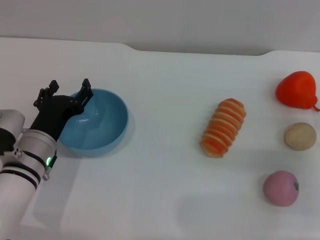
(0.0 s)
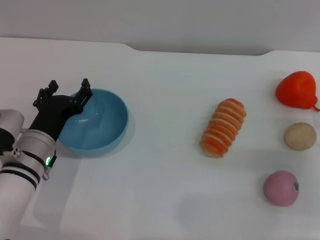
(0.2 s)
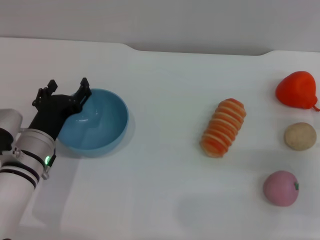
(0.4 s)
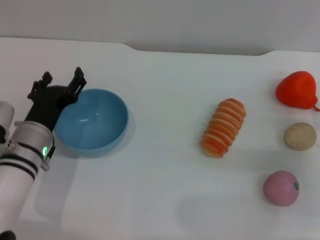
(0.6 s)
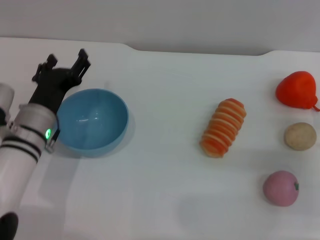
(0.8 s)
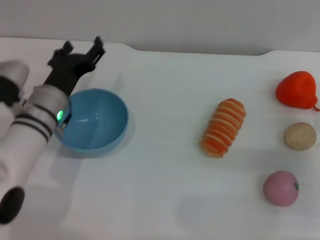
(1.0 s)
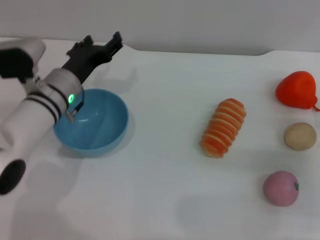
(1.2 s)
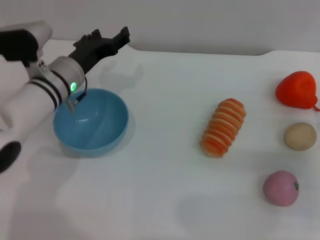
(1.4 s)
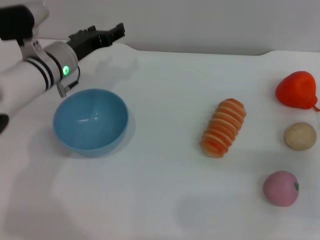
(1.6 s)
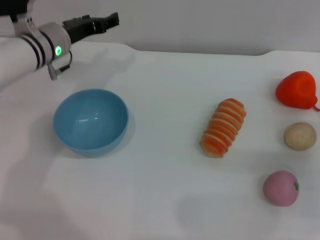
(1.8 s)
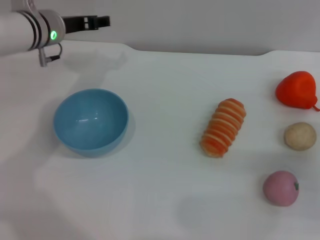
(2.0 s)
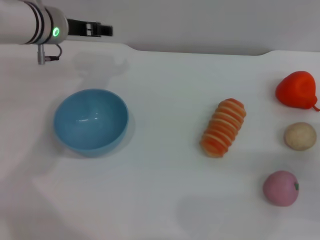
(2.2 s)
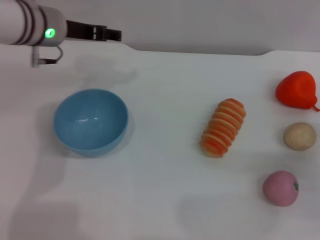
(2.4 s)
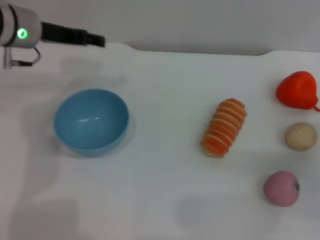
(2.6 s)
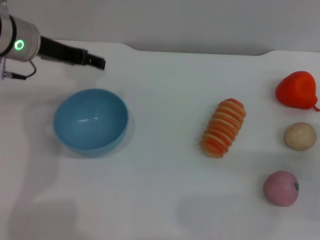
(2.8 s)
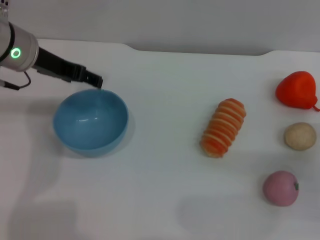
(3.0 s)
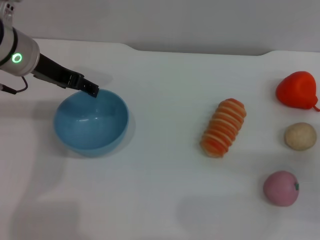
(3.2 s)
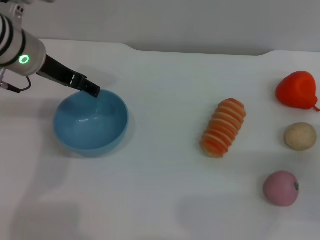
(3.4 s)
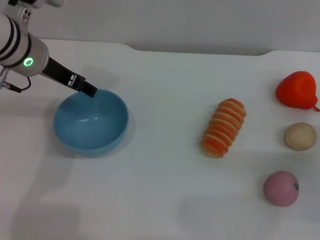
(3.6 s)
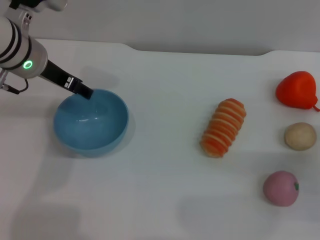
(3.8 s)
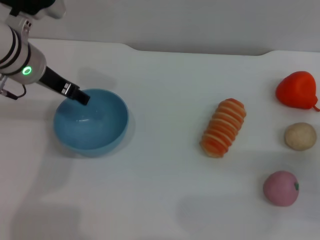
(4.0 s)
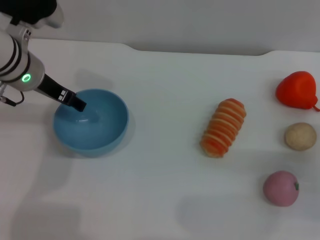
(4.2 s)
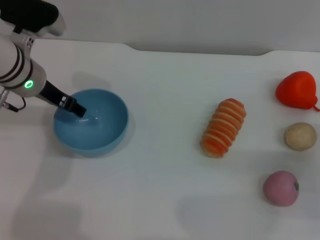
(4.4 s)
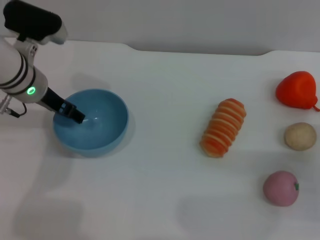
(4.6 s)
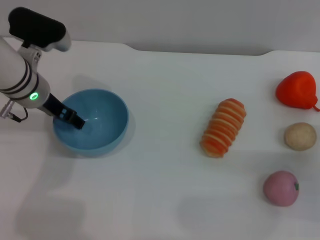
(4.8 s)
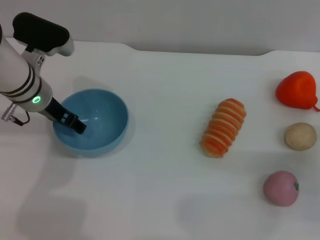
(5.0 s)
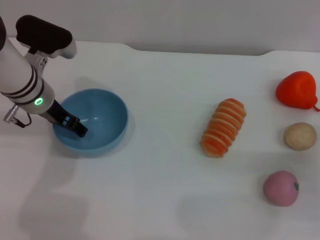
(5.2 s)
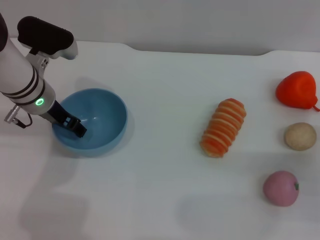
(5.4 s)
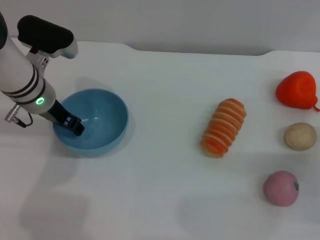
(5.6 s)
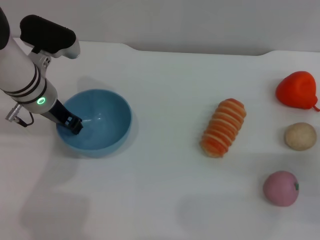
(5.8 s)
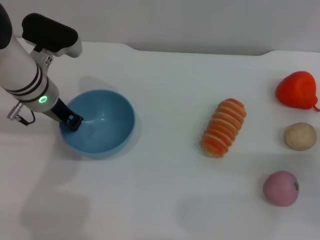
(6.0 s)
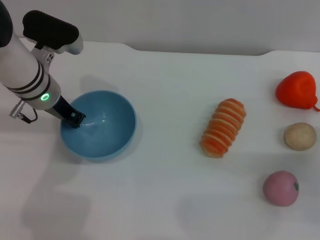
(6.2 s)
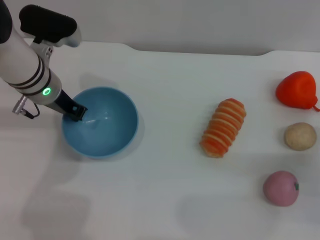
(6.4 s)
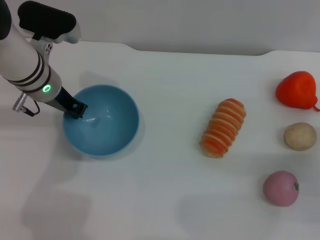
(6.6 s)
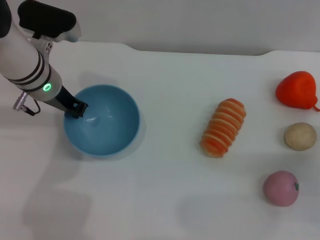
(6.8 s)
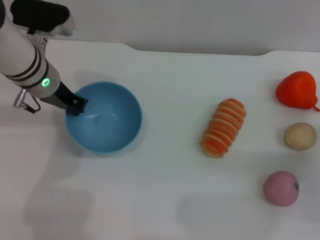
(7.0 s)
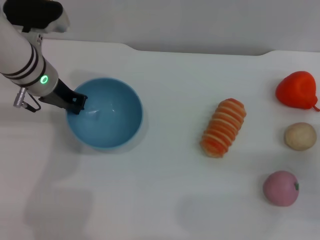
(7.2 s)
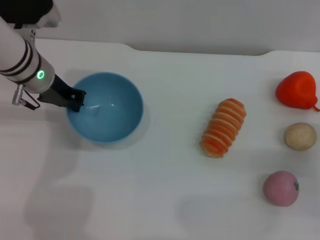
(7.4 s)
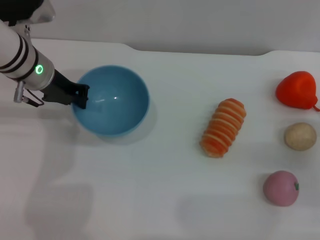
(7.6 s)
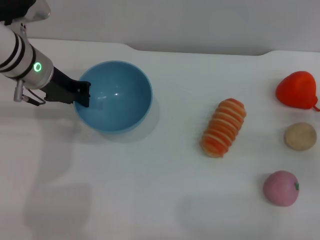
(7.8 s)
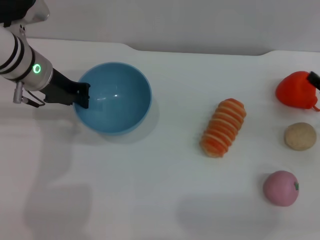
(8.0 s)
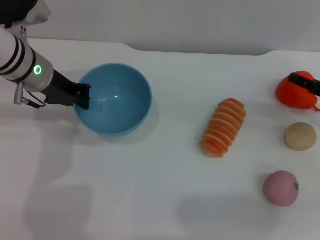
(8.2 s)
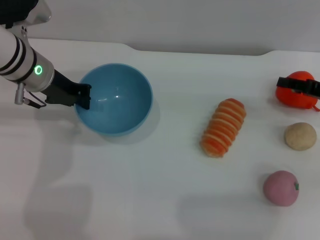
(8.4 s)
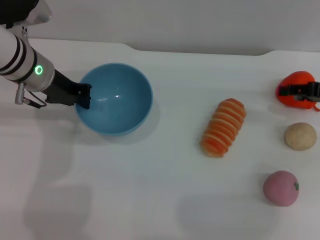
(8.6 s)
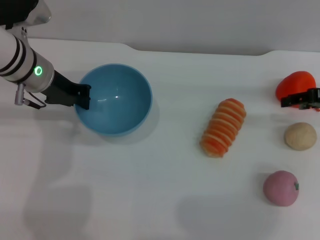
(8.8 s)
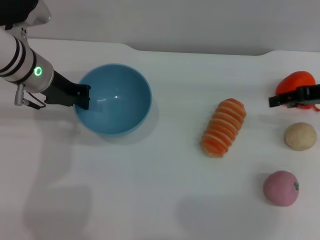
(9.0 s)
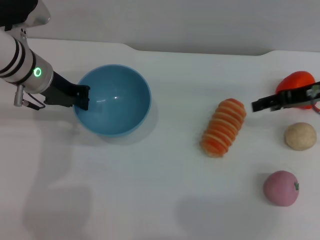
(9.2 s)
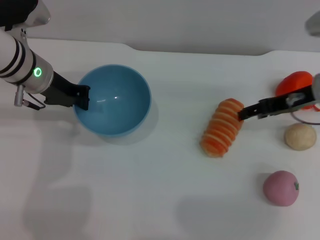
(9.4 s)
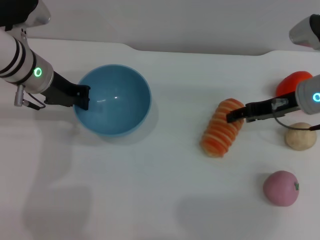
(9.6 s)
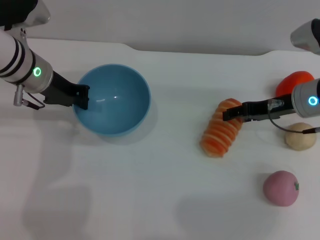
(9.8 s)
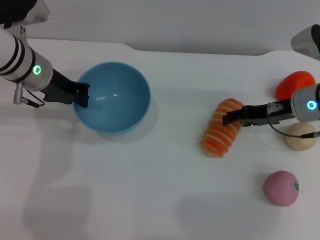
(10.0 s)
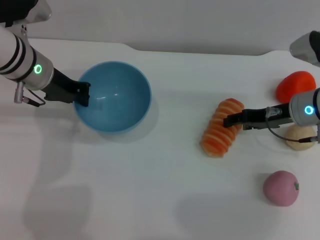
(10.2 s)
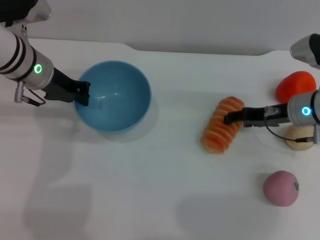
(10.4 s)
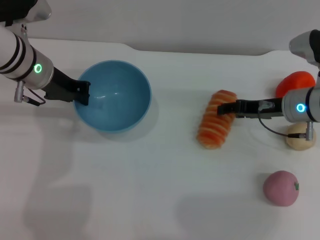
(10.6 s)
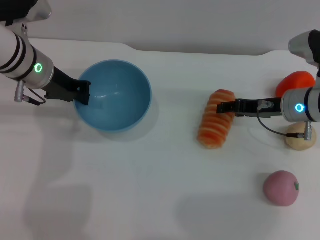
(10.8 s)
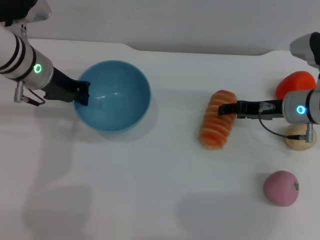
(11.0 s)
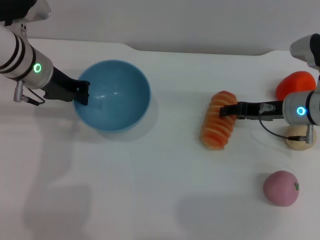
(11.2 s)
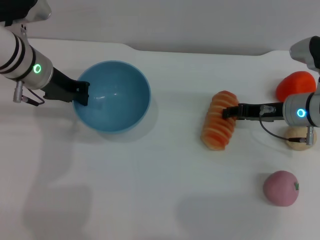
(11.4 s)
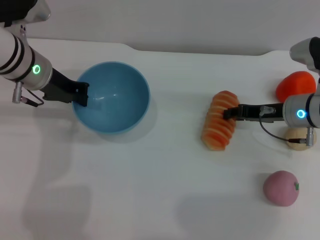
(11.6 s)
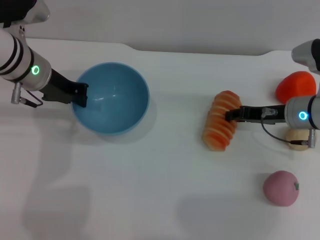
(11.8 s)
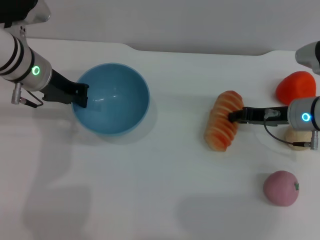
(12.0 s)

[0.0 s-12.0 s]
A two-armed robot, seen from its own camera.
Task of the whole recording: put the bread into the blue bowl and pour it out repeatedly.
Step, 0.0 to 7.6 s: Pick up the bowl with the left gripper.
0.0 to 1.6 s: The left gripper shifts some 15 cm forward and upward.
1.6 to 3.0 s: The left gripper is displaced upward by roughly 10 cm.
3.0 to 4.4 s: The grippers stay close to where they were, moving slightly.
4.4 to 6.0 s: The left gripper closes.
6.0 to 7.6 s: The left gripper closes up.
7.6 to 9.0 s: The right gripper heads upward and forward, covering roughly 15 cm.
9.0 to 10.4 s: The right gripper heads to the left and downward, covering roughly 10 cm.
10.4 to 12.0 s: The right gripper closes.

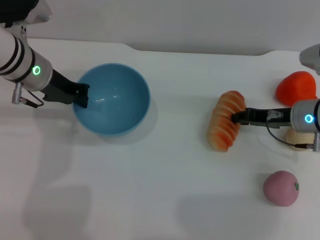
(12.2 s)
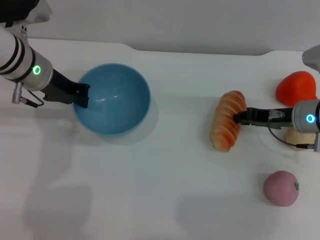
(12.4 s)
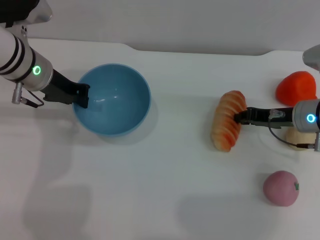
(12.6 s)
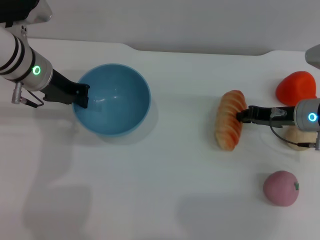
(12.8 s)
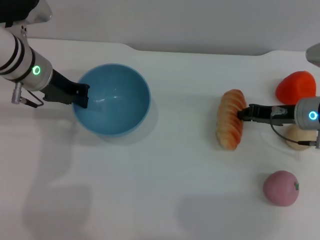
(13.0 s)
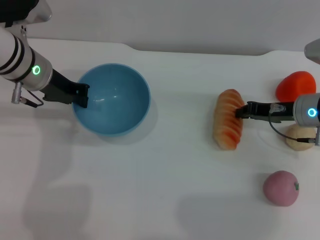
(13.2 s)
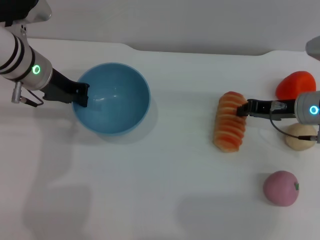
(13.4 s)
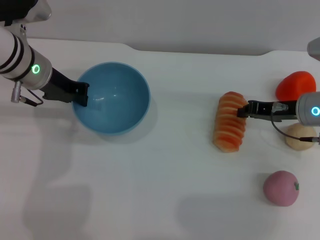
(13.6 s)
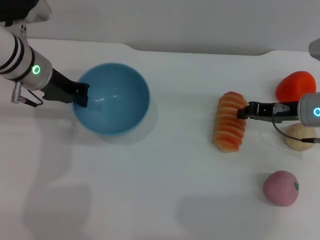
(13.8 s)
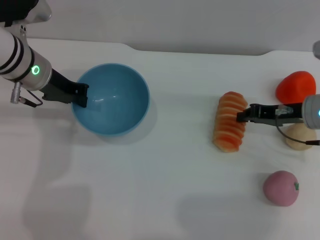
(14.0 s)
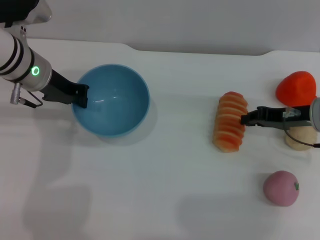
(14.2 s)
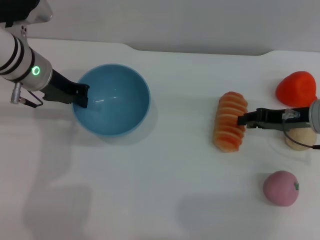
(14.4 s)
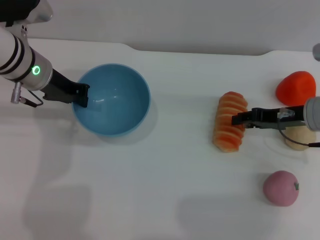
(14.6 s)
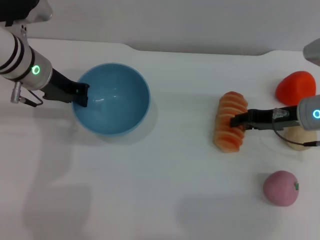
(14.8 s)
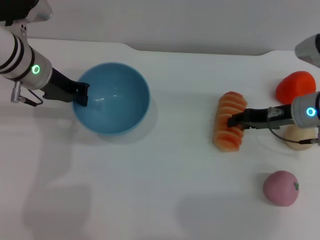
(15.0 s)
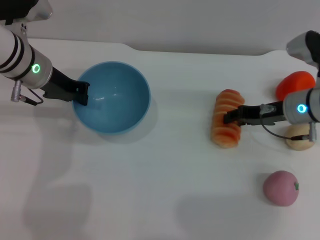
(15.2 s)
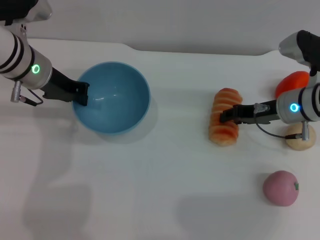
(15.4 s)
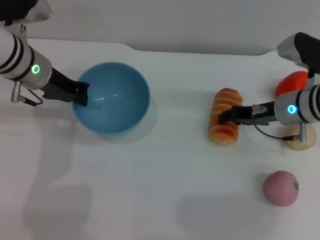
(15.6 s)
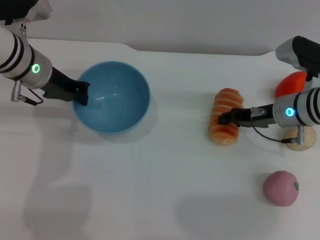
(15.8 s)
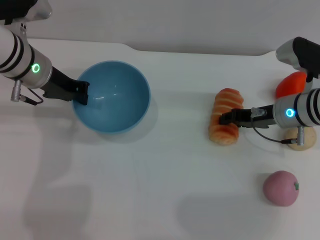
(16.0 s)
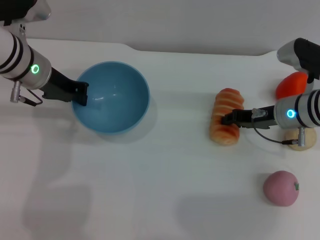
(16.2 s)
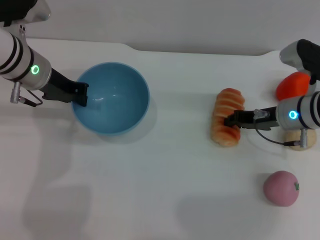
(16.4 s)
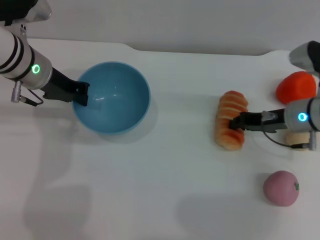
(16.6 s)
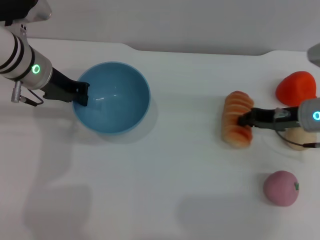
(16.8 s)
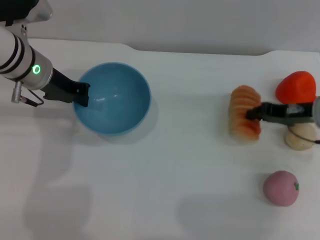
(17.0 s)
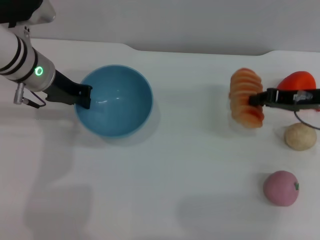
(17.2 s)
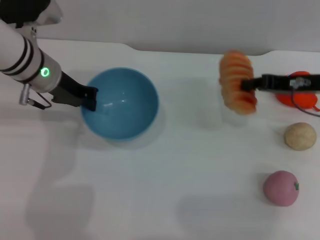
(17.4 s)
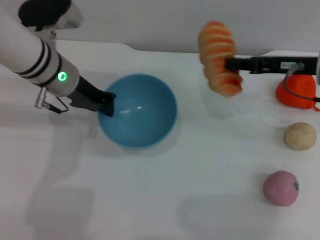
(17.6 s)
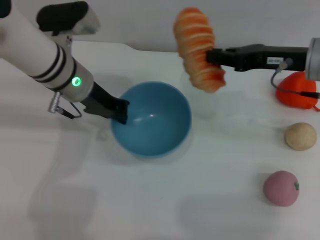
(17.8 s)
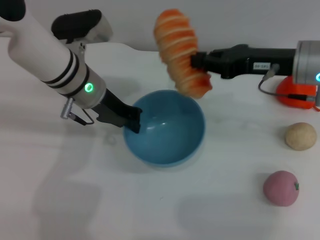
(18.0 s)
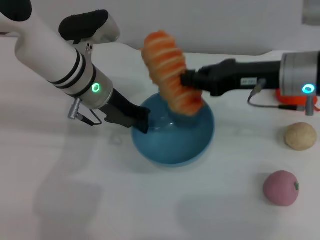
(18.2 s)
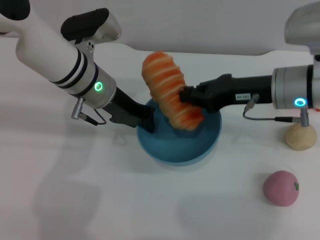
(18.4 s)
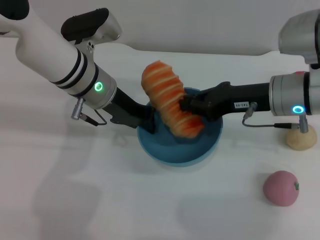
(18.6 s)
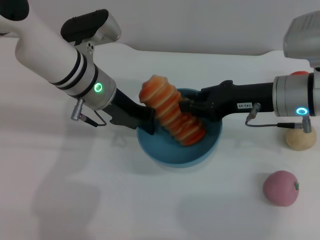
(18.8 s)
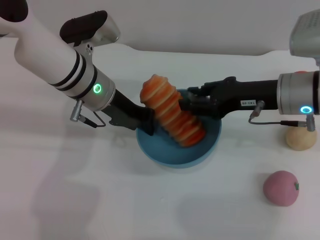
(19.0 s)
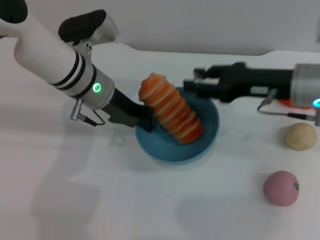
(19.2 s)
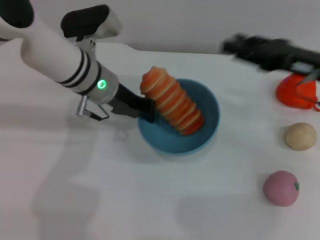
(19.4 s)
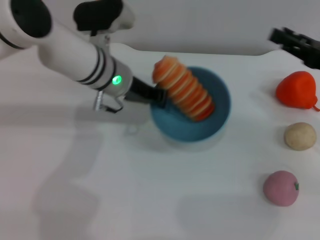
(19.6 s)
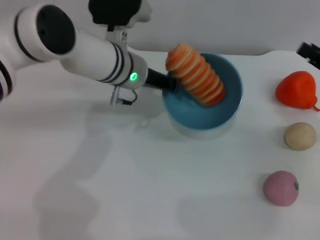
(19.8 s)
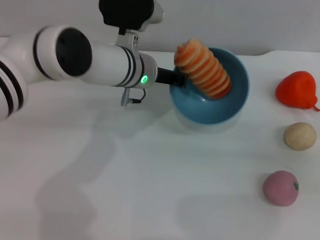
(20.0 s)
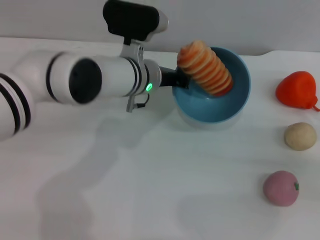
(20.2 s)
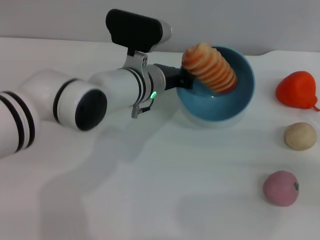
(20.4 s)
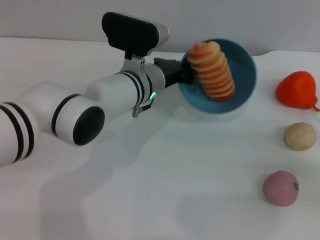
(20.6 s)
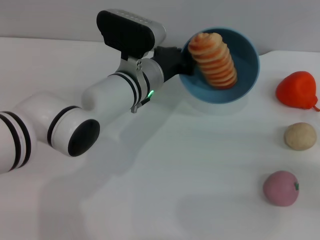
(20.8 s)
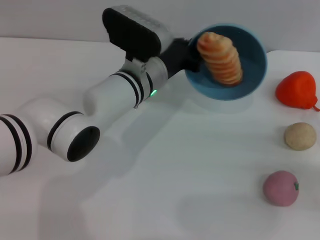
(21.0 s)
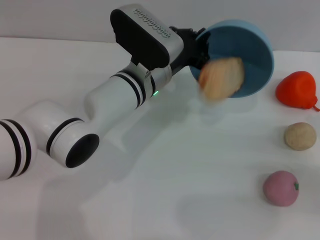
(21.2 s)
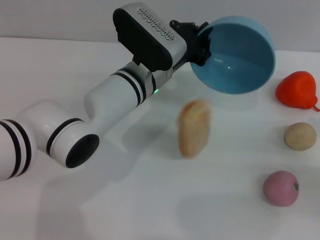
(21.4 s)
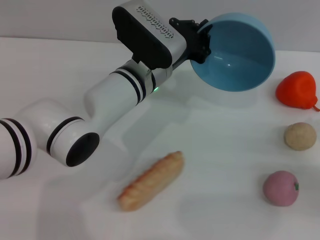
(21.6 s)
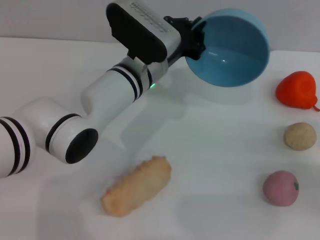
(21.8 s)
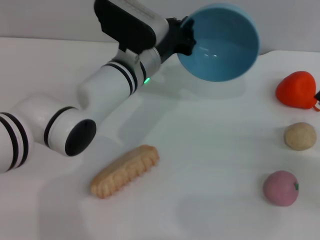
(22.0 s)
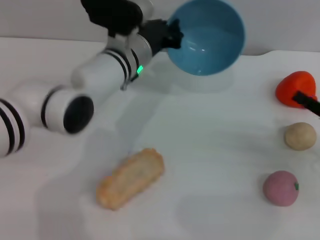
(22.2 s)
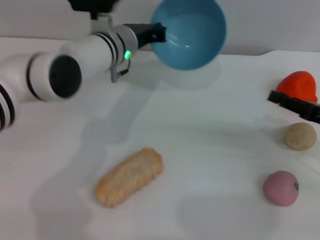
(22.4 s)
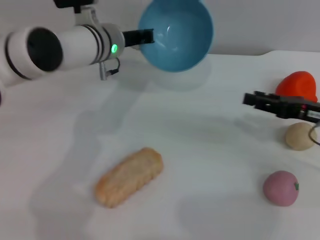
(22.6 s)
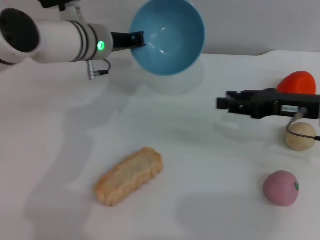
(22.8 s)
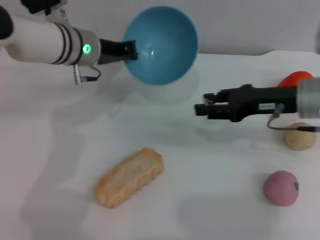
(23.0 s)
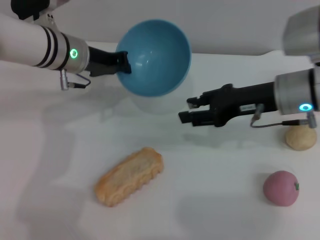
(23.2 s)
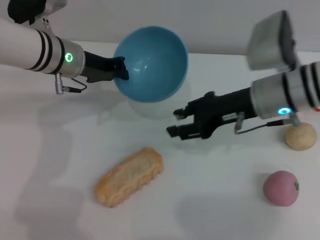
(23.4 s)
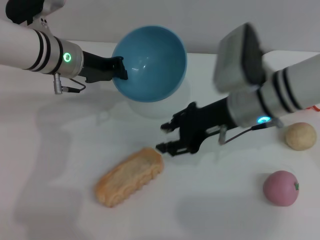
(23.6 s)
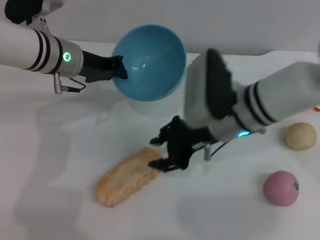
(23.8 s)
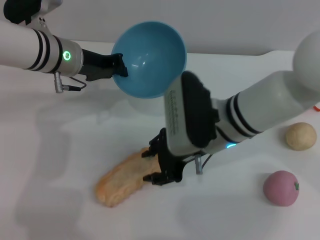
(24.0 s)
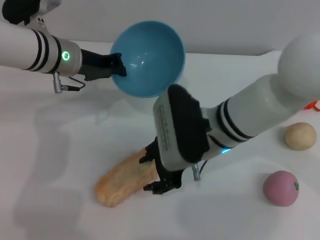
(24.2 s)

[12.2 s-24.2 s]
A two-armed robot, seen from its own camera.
Task of the whole recording: put the bread into the blue bowl and pour it out repeatedly.
Step, 12.2 to 17.0 s: Pick up the bread with the right gripper.
Step, 17.2 to 20.4 s: Place the bread into the bowl.
Step, 20.6 to 22.6 s: Pour the bread out of the bowl.
12.2 to 13.8 s: The right gripper closes up.
13.8 to 15.2 s: The right gripper opens.
15.2 to 16.6 s: There are only small adjustments of the grippers.
16.6 to 18.2 s: The left gripper heads to the right, covering approximately 10 cm; the right gripper is displaced upward by approximately 10 cm.
18.2 to 19.8 s: The left gripper changes place by some 5 cm; the right gripper goes about 15 cm to the right and backward, and opens up.
19.8 to 21.2 s: The right gripper moves backward and downward, some 10 cm. Meanwhile the left gripper changes place by approximately 5 cm.
21.2 to 22.6 s: The left gripper goes approximately 10 cm to the left and forward, while the right gripper heads forward and to the left, covering approximately 10 cm.
22.6 to 24.2 s: The right gripper heads to the left, covering approximately 25 cm; the left gripper shifts roughly 5 cm to the left.
